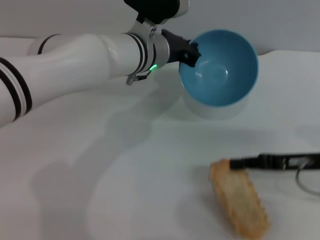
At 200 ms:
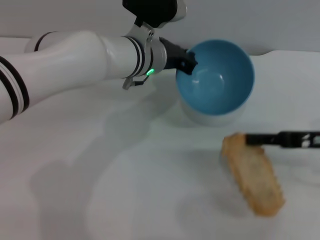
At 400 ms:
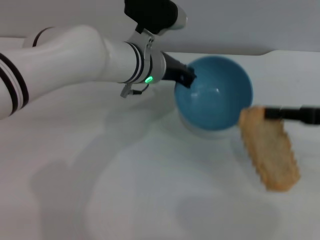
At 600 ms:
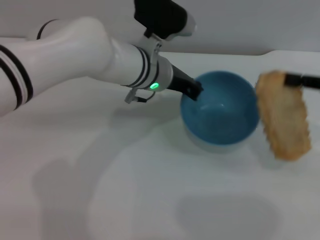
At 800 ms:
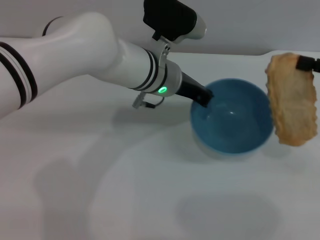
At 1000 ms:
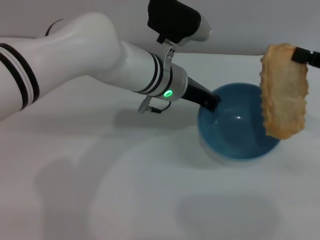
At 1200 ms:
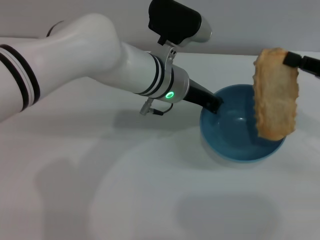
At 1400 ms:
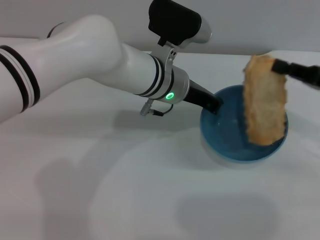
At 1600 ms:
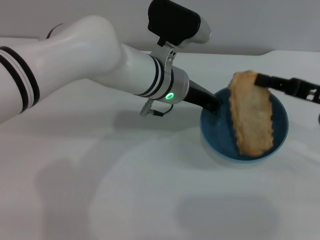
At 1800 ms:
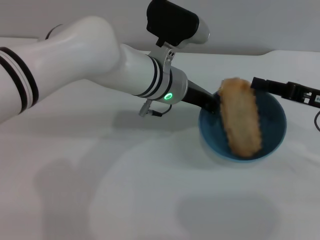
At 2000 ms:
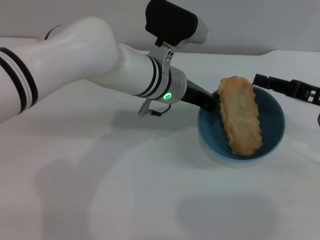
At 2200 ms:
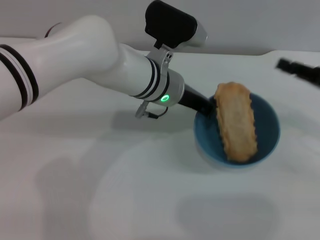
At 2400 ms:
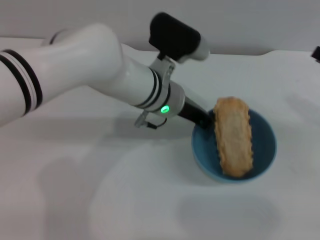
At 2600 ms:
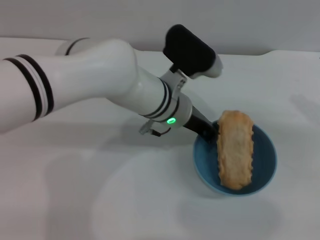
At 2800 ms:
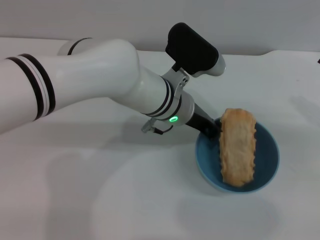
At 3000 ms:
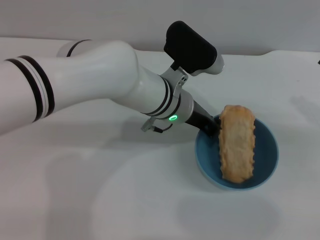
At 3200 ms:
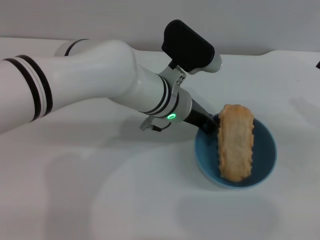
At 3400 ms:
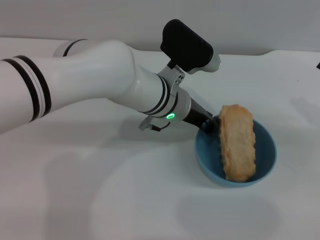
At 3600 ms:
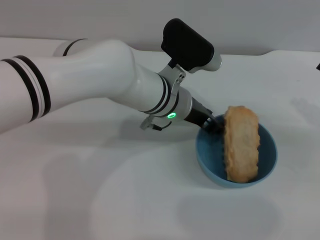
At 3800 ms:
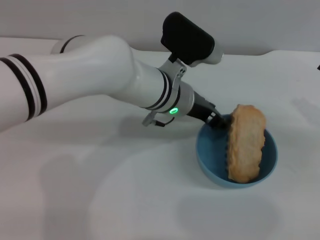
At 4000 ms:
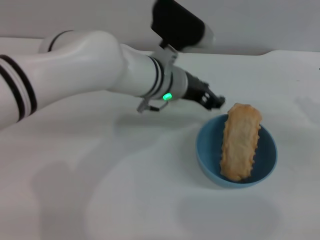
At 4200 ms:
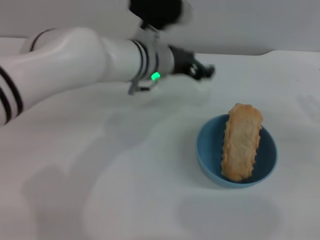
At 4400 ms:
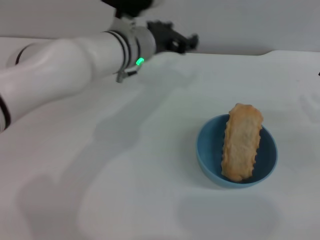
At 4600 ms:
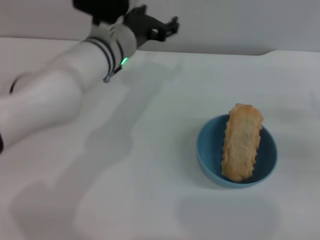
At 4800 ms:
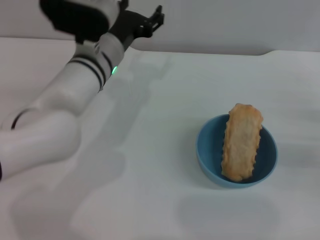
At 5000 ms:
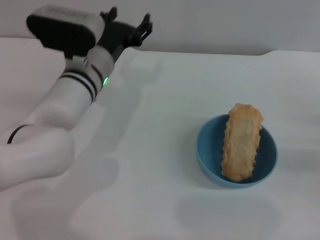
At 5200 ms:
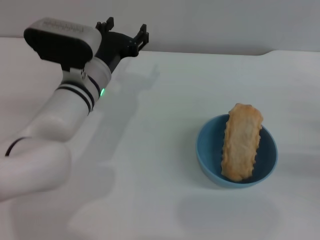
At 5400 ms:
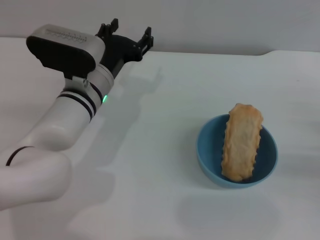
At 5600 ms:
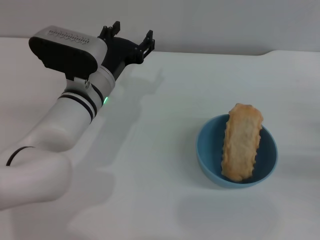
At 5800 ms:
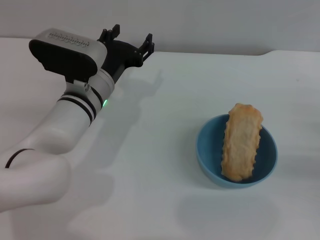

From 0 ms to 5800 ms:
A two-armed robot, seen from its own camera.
Task of the whole recording: put the bread into the blue bowl and pour it out repeatedly.
Step, from 200 ms to 2000 ms: Place the bread into the bowl.
Step, from 2200 ms to 4000 ms: Place the bowl on the table.
From 0 ms to 1400 ms: The right gripper travels upward by approximately 5 cm.
From 1400 ms to 2800 ms: The right gripper moves about 5 cm, and opens up.
From 2800 ms to 4400 ms: The left gripper travels to the left by some 5 cm, and opens its fingers.
From 4400 ms to 5800 ms: The left gripper heads downward, backward and to the left, covering roughly 10 cm. The right gripper is displaced downward by about 5 cm.
